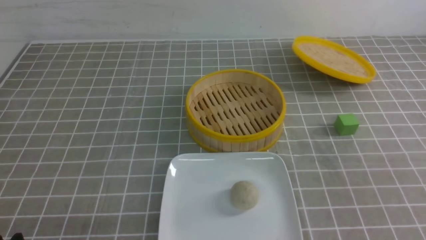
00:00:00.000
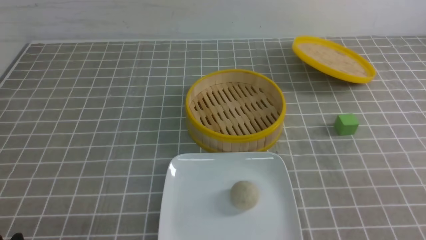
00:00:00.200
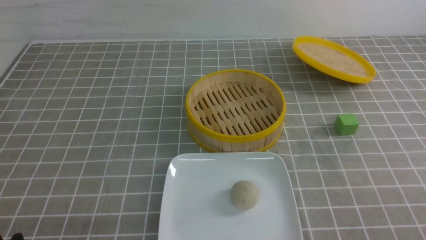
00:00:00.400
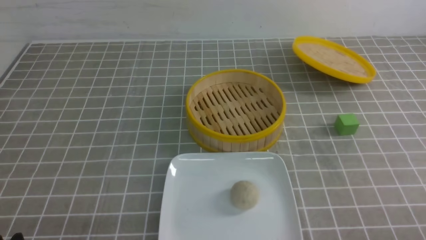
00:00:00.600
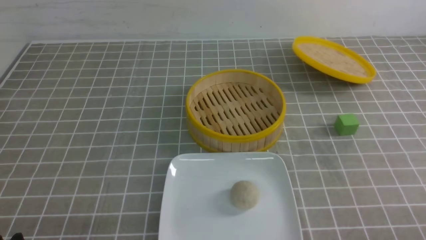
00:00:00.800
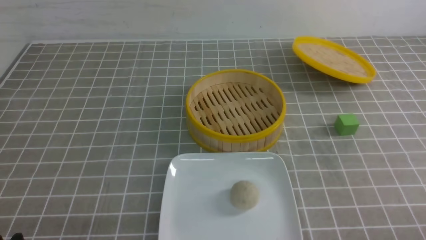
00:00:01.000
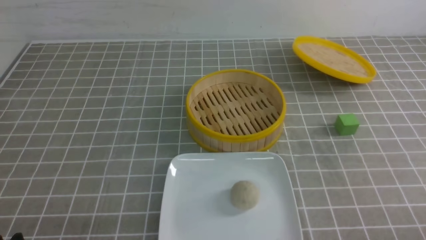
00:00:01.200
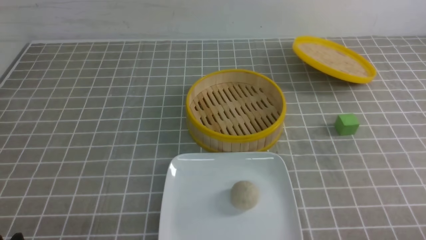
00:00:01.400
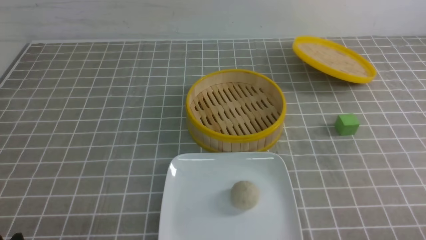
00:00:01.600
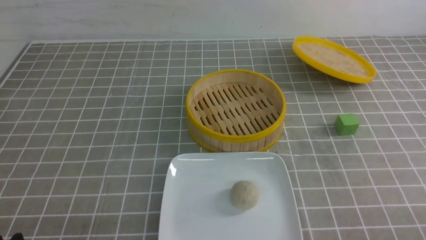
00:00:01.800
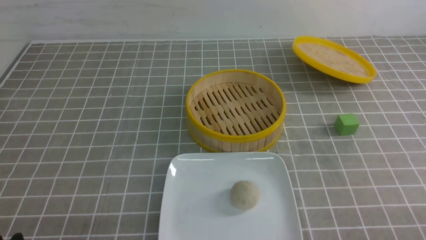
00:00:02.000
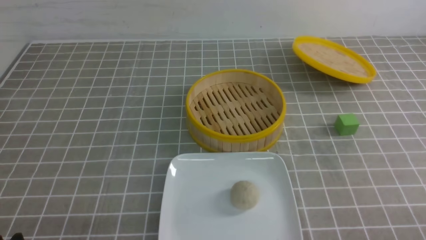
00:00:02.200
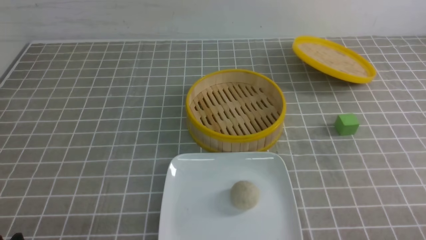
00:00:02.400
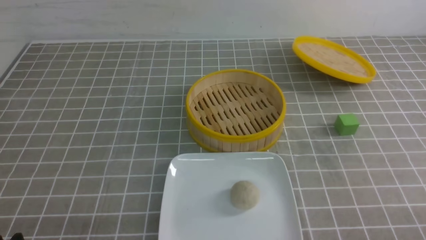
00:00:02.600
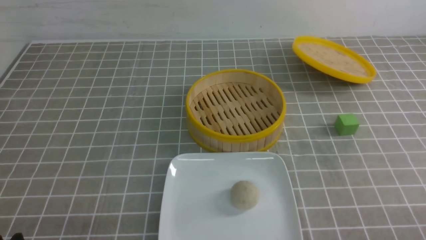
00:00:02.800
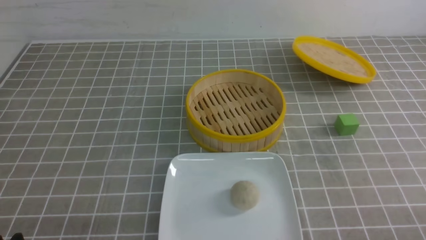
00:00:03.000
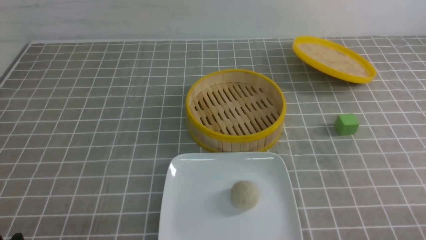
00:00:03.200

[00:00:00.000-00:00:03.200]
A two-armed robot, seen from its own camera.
00:00:01.600 to 00:00:03.200: Both grippers stay about where they are.
